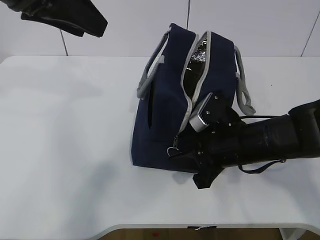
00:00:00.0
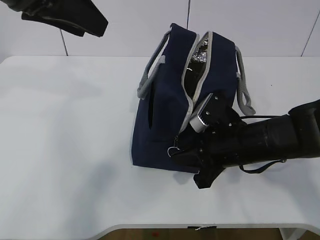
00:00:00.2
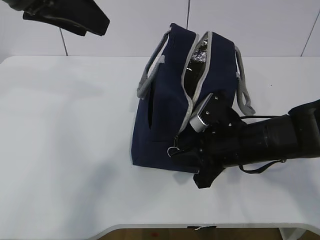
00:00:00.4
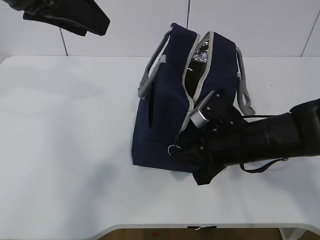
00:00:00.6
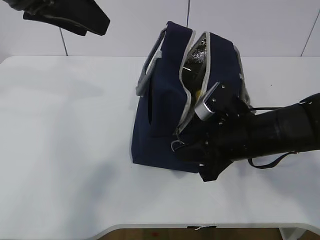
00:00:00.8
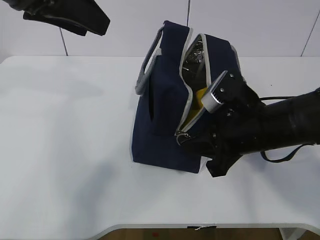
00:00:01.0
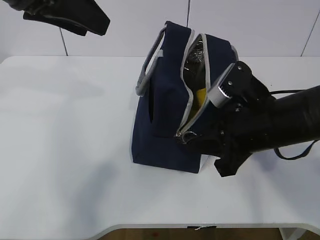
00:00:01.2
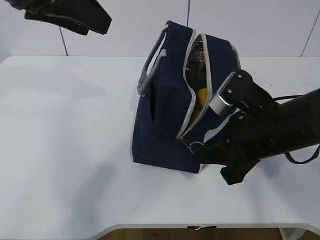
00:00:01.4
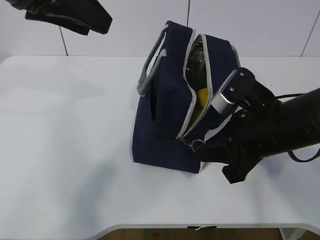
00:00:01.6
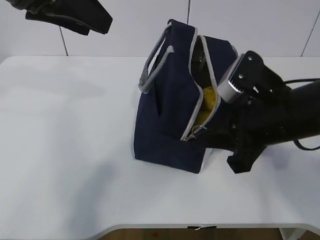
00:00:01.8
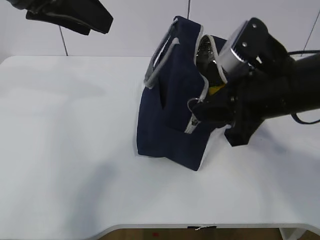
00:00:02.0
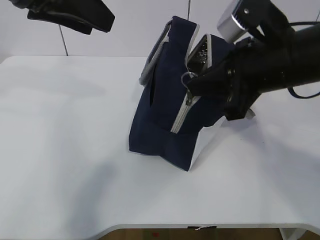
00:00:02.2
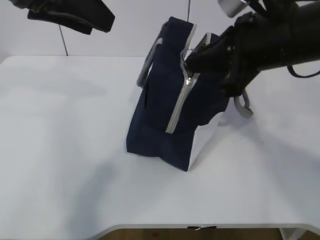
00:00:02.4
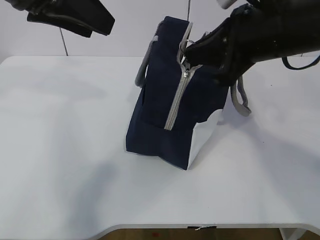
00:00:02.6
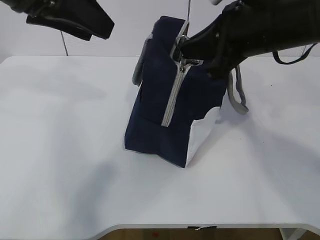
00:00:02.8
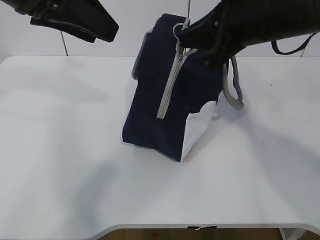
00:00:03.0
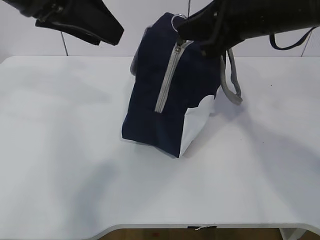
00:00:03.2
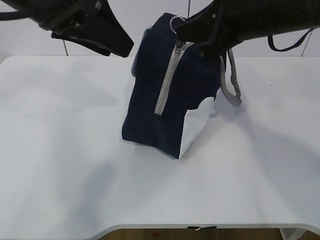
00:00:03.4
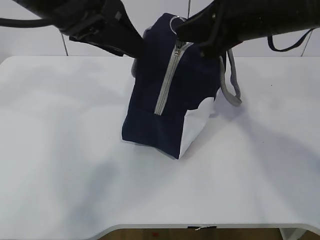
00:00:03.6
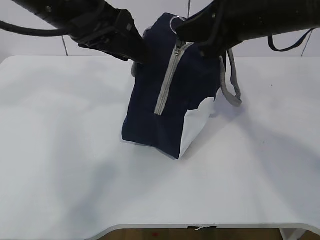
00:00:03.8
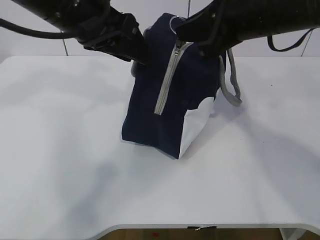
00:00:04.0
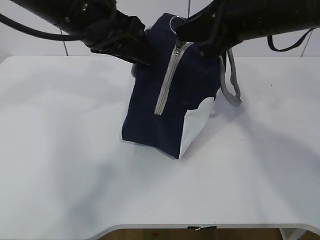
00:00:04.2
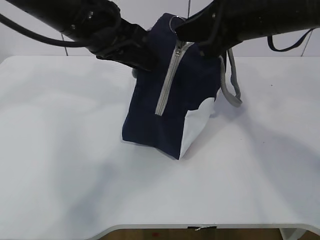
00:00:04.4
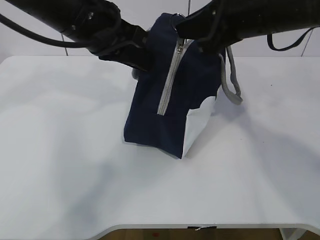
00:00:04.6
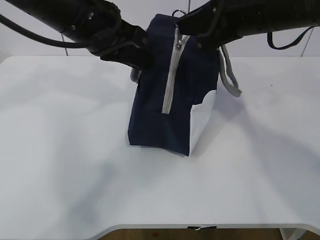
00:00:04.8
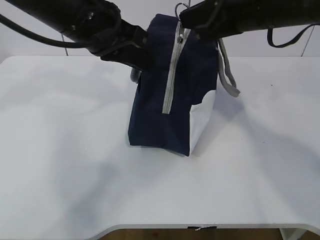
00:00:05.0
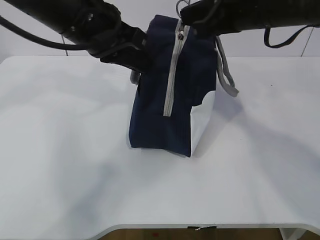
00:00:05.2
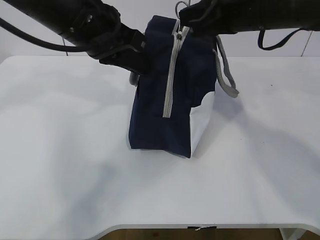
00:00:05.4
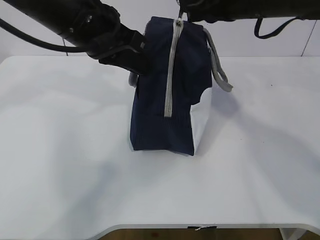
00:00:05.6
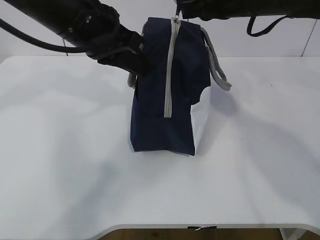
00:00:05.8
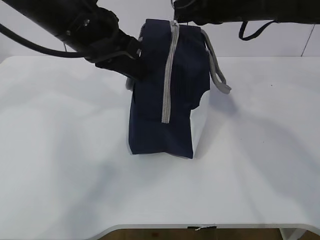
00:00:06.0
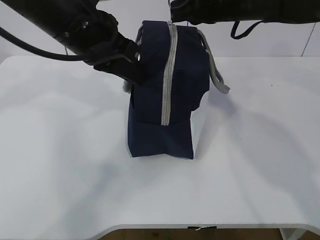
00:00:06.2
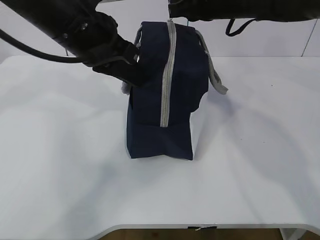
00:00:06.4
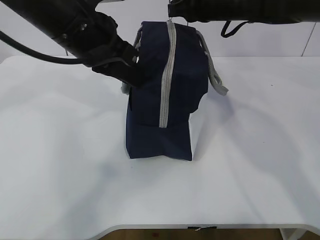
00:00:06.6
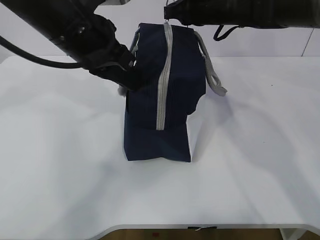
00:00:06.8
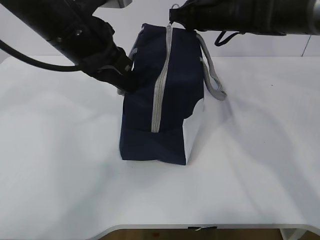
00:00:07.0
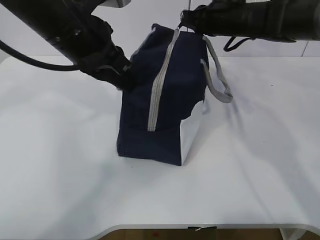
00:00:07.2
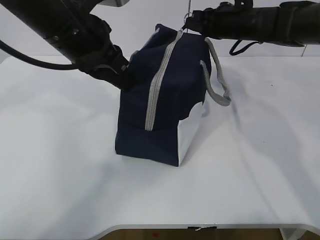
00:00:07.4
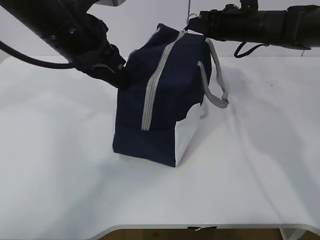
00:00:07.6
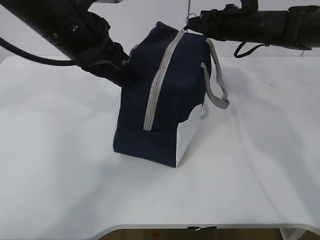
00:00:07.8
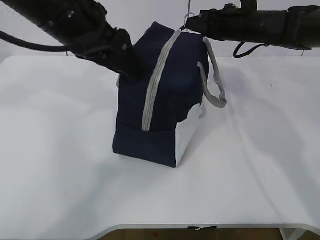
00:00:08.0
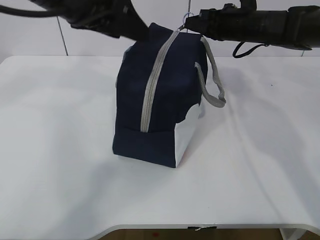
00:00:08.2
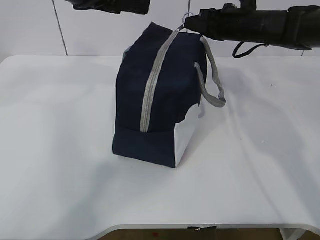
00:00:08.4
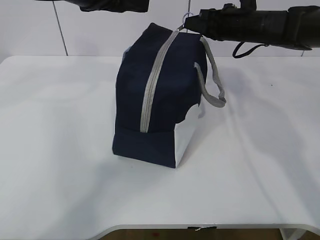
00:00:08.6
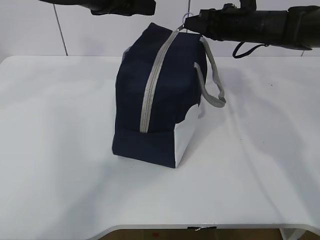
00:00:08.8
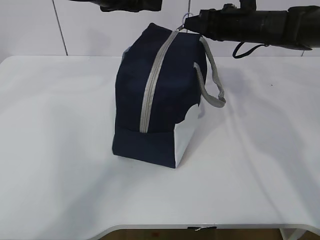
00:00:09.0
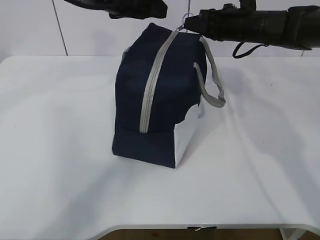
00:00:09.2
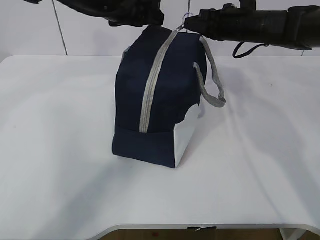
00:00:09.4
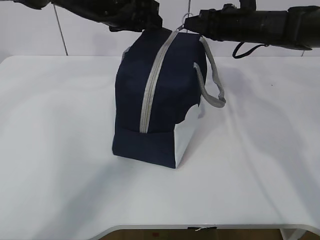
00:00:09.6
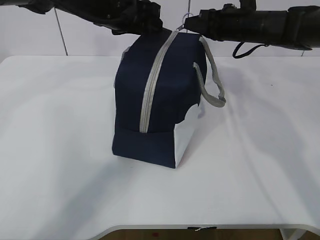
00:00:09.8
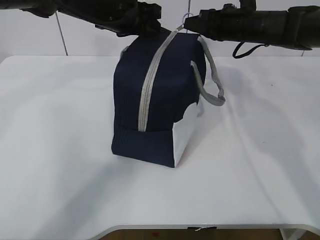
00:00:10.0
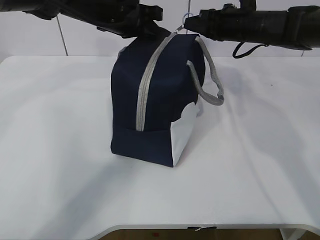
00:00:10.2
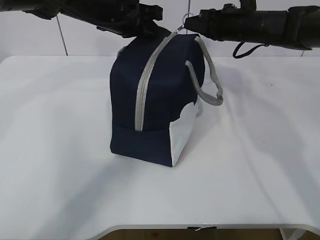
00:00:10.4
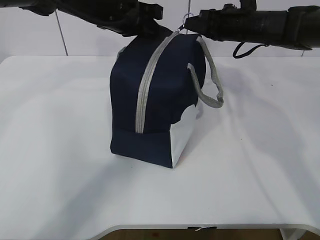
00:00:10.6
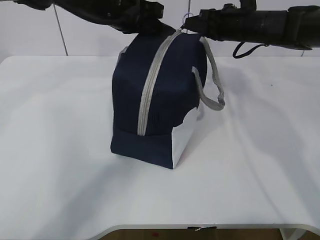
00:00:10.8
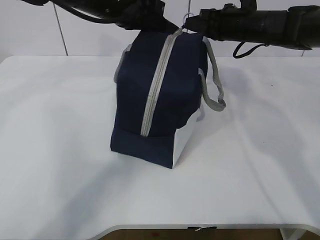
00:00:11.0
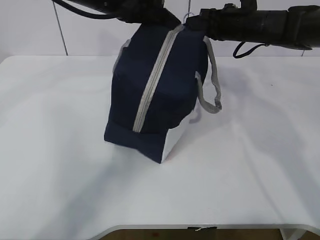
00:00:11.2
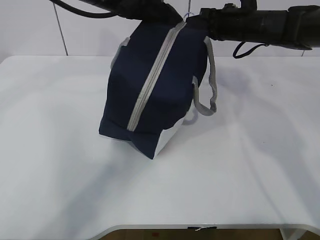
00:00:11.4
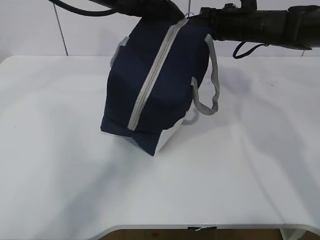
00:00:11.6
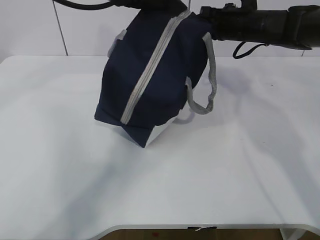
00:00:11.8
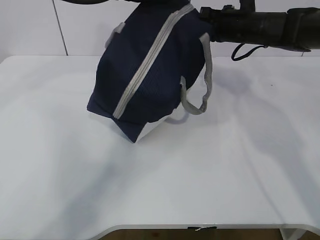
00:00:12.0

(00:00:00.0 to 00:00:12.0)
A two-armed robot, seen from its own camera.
00:00:00.0 - 00:00:01.6: The right gripper heads upward, covering about 5 cm.
00:00:01.6 - 00:00:03.0: The right gripper travels upward and forward by some 15 cm.
00:00:03.0 - 00:00:04.4: The left gripper travels downward and forward by approximately 10 cm.
00:00:04.4 - 00:00:06.0: The left gripper closes, while the right gripper goes approximately 5 cm forward.
00:00:06.0 - 00:00:07.6: The right gripper is displaced forward, downward and to the right by roughly 15 cm.
00:00:07.6 - 00:00:09.0: The left gripper travels forward by approximately 5 cm, and opens up.
00:00:09.0 - 00:00:10.4: The left gripper heads downward, covering approximately 5 cm, and closes up.
00:00:10.4 - 00:00:12.0: The left gripper moves upward, approximately 5 cm.

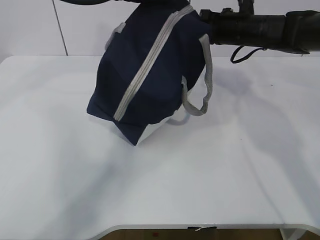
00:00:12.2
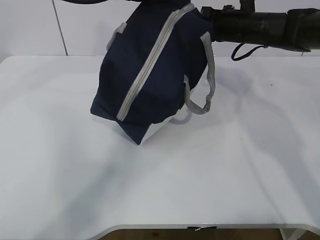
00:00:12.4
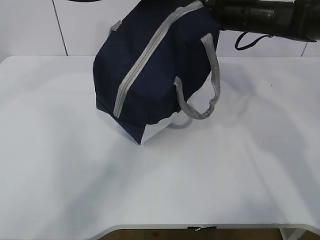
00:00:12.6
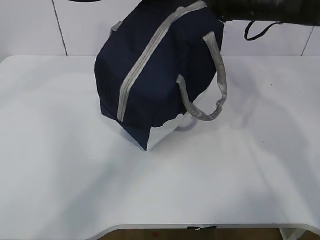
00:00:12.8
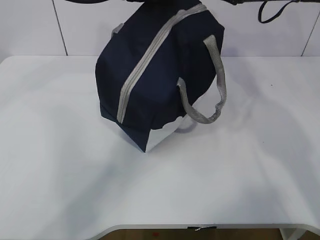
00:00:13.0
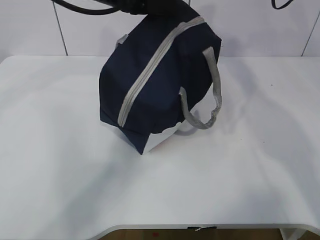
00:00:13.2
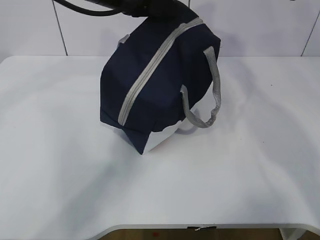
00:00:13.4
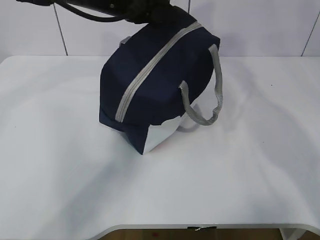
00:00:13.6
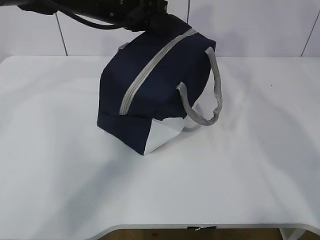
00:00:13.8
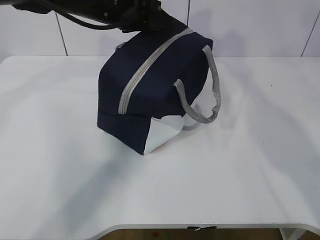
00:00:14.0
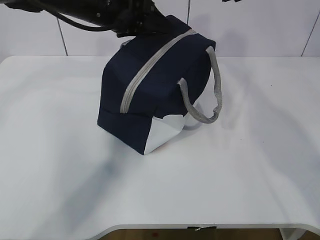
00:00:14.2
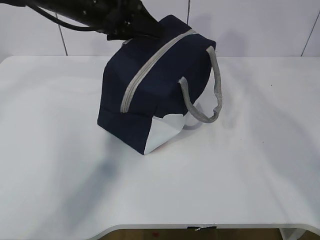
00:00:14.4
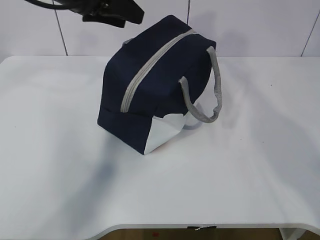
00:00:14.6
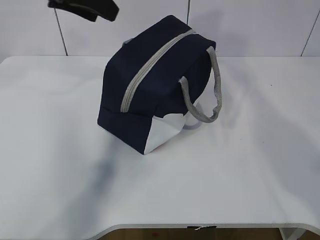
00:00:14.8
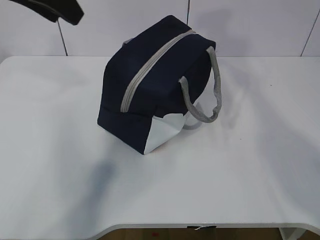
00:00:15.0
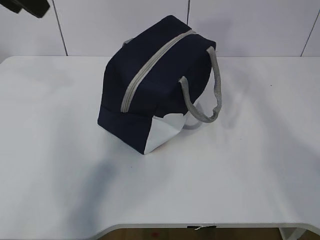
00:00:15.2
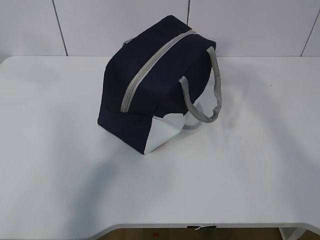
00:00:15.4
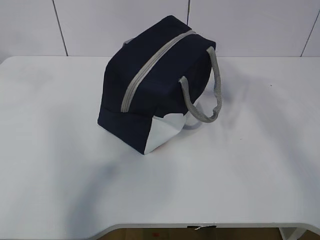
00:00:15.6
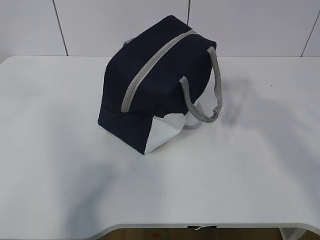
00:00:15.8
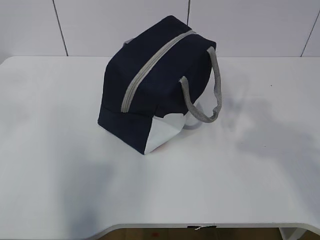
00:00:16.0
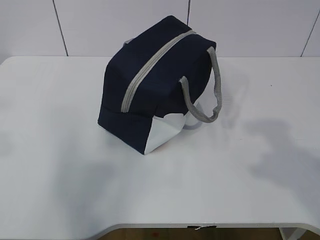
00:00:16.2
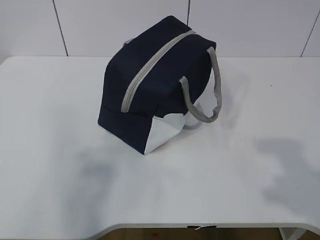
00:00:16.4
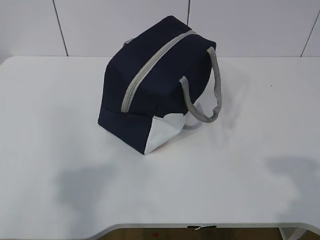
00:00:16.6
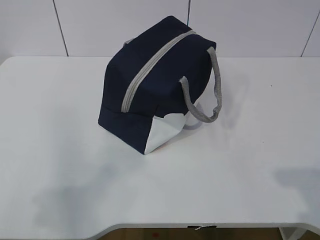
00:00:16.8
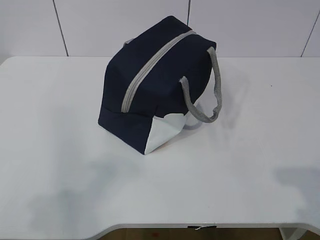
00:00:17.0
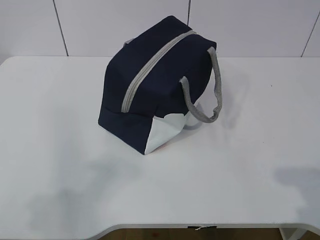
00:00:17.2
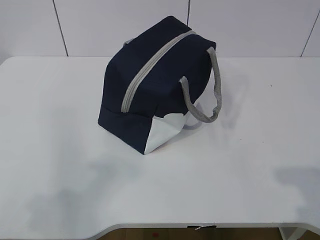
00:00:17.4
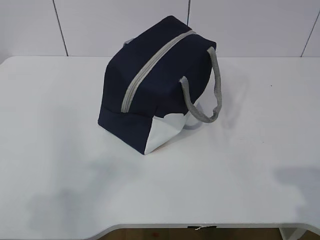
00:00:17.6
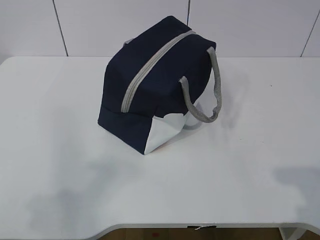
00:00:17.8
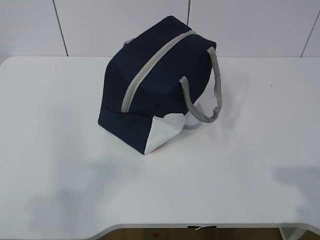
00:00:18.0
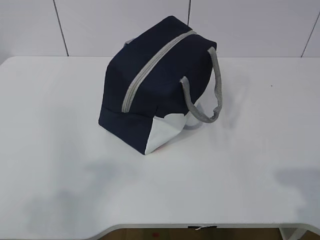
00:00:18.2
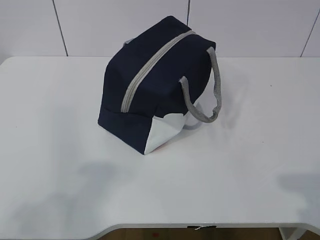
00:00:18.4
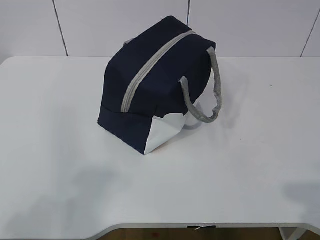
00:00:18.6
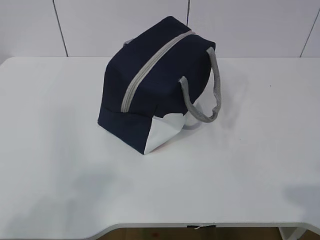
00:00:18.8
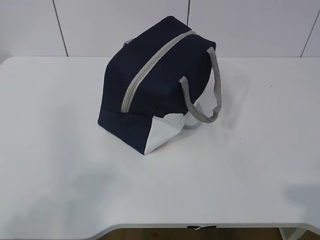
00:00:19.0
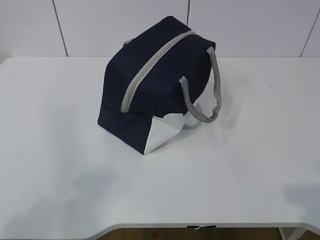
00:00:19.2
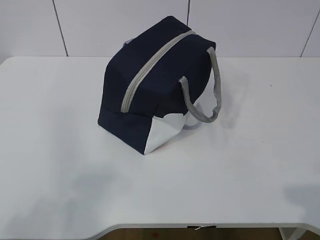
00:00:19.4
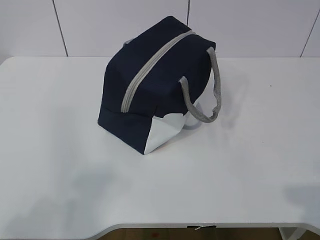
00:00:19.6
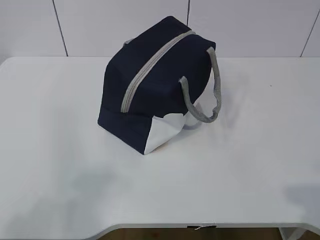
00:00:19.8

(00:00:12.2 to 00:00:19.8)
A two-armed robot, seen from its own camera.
Step, 00:00:12.2 - 00:00:14.6: zip up the zipper to close the bag.
00:00:12.2 - 00:00:13.8: The left gripper goes some 5 cm downward; the right gripper is displaced upward and backward by some 15 cm, and opens its fingers.
00:00:13.8 - 00:00:15.2: The left gripper travels to the left, upward and backward by roughly 20 cm, and opens. The right gripper goes approximately 15 cm backward and upward.
00:00:15.2 - 00:00:16.8: The two grippers go approximately 30 cm backward and downward.
